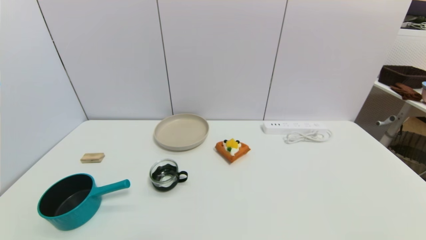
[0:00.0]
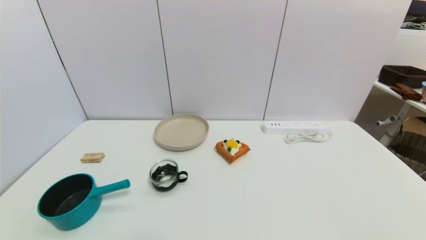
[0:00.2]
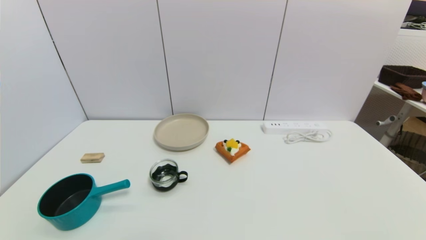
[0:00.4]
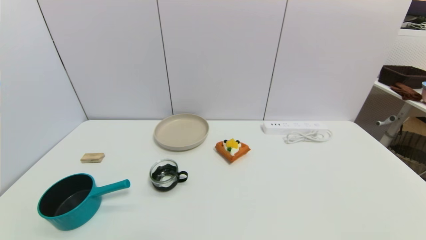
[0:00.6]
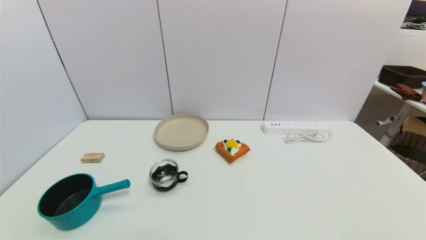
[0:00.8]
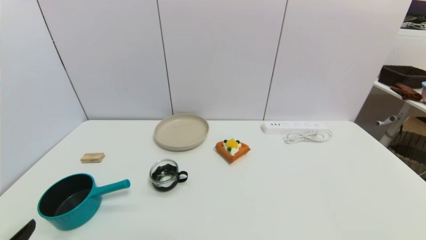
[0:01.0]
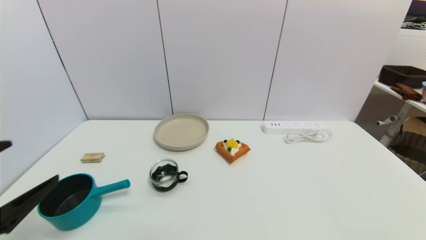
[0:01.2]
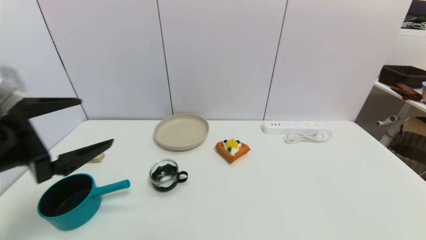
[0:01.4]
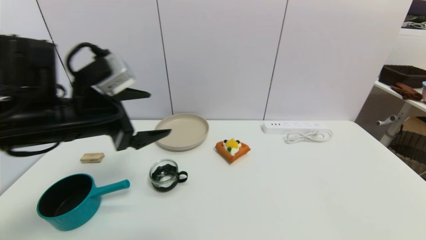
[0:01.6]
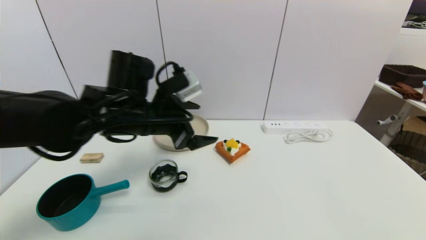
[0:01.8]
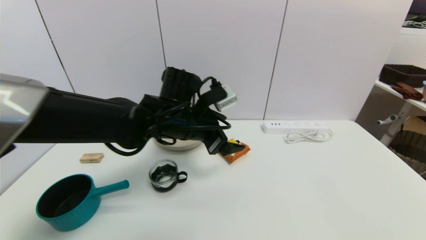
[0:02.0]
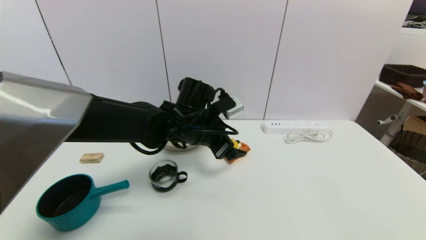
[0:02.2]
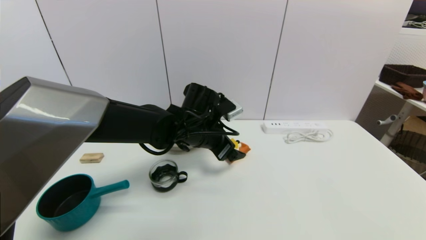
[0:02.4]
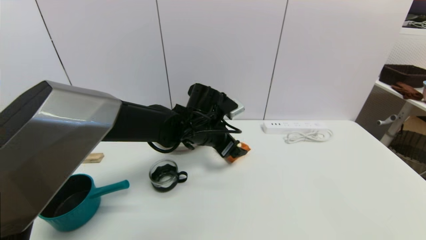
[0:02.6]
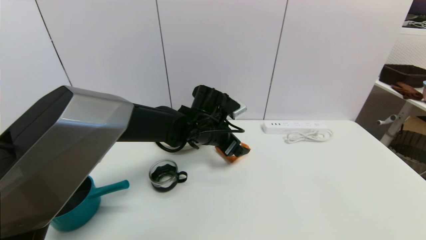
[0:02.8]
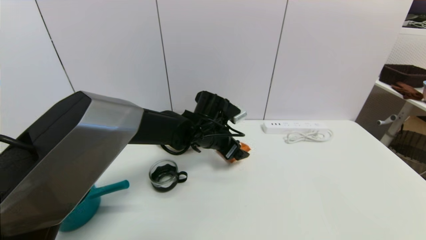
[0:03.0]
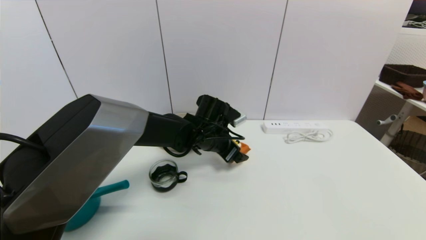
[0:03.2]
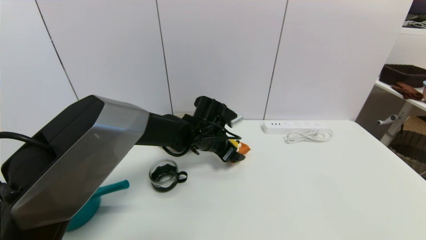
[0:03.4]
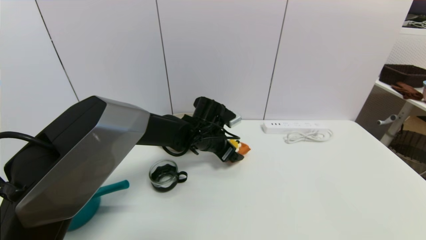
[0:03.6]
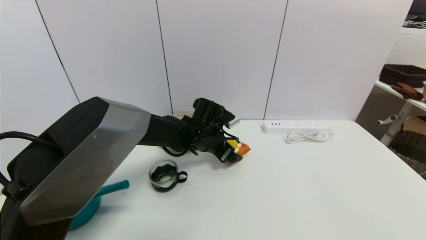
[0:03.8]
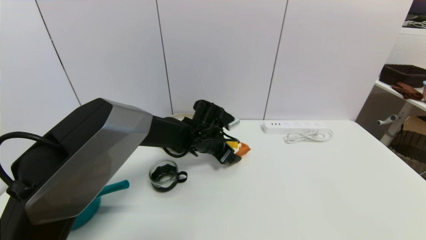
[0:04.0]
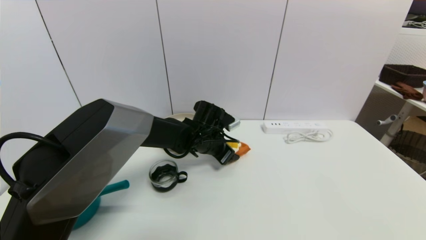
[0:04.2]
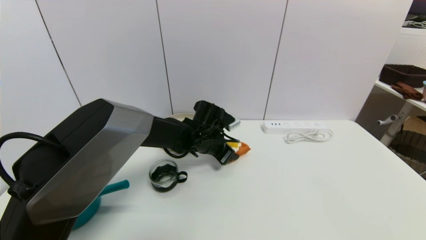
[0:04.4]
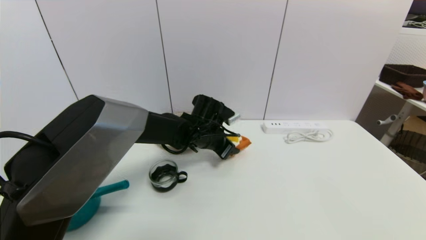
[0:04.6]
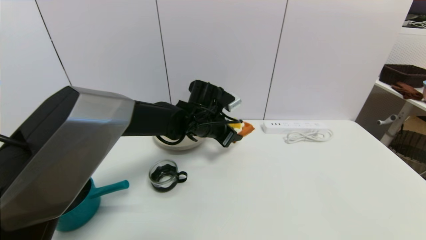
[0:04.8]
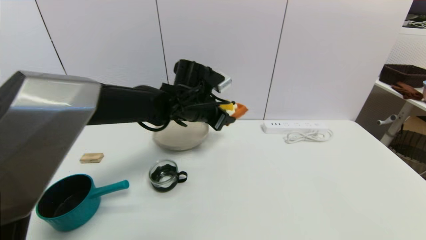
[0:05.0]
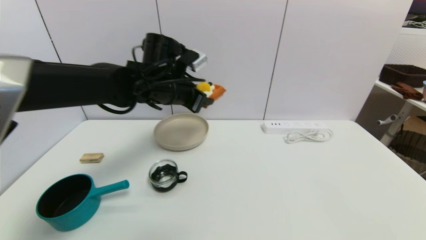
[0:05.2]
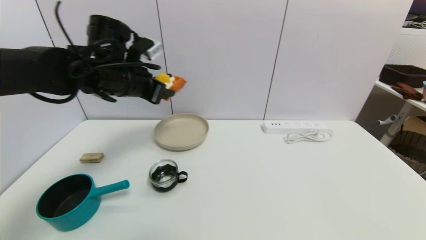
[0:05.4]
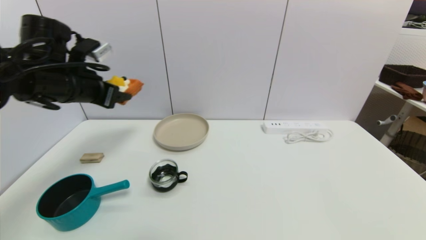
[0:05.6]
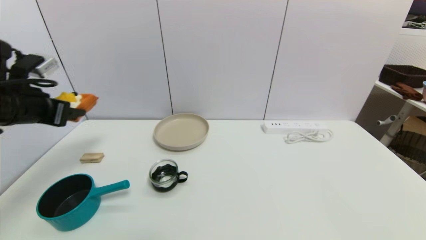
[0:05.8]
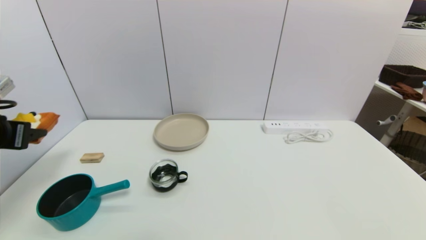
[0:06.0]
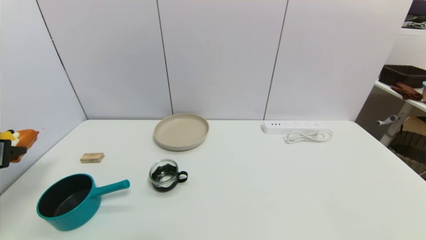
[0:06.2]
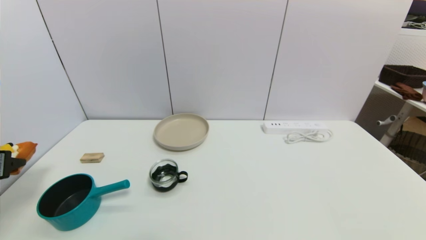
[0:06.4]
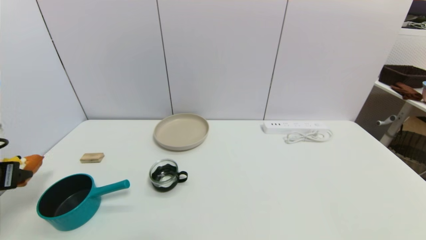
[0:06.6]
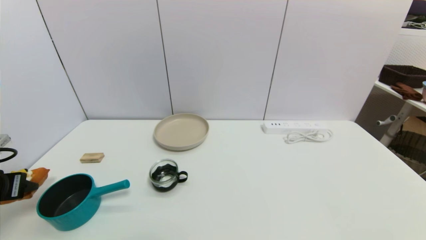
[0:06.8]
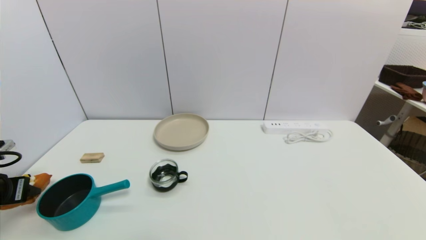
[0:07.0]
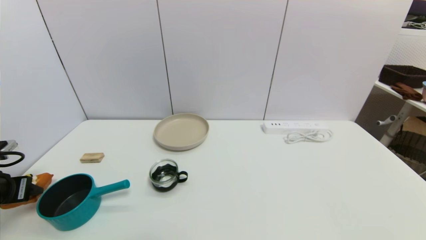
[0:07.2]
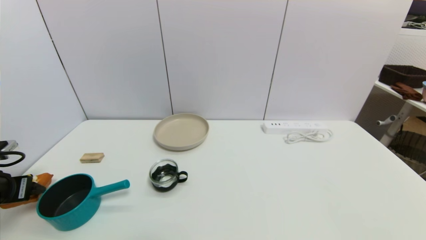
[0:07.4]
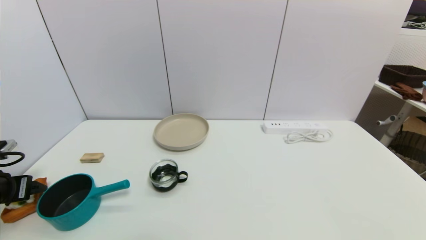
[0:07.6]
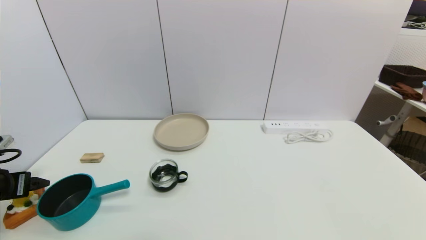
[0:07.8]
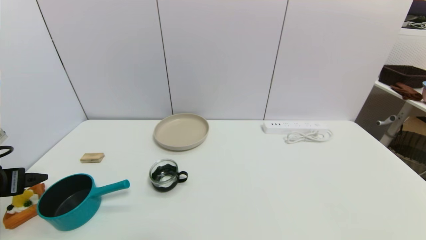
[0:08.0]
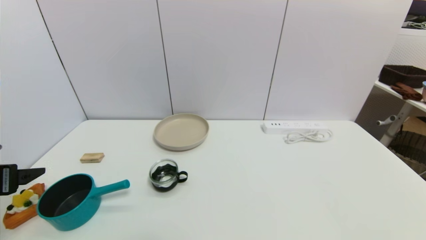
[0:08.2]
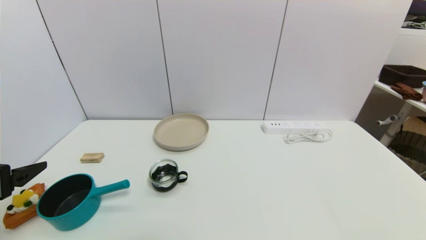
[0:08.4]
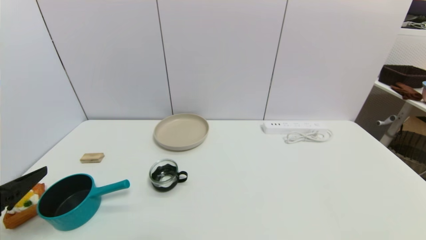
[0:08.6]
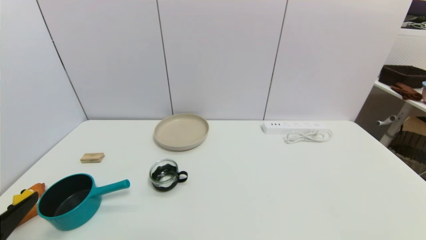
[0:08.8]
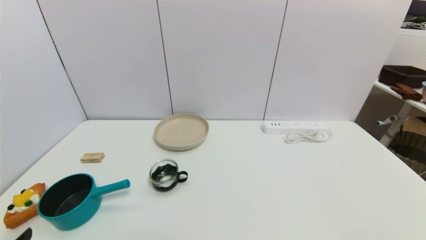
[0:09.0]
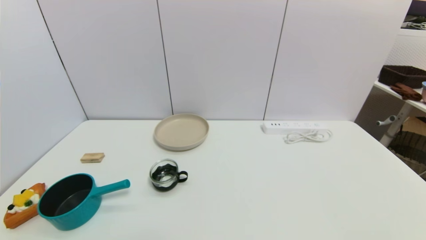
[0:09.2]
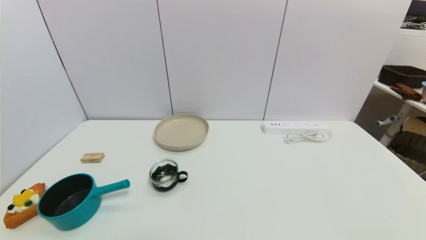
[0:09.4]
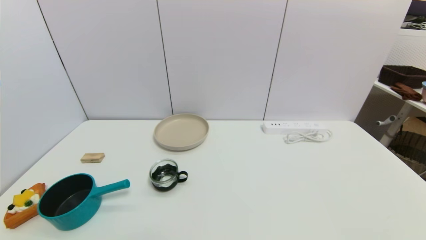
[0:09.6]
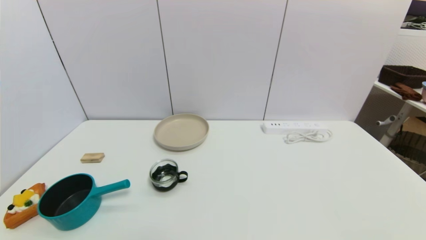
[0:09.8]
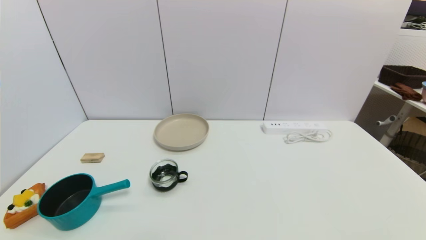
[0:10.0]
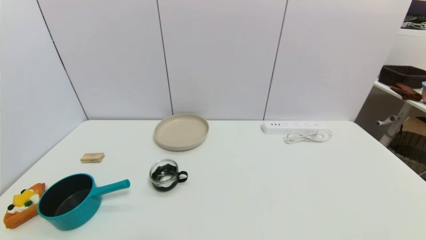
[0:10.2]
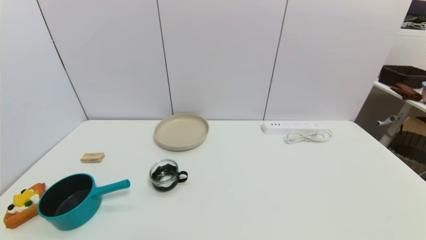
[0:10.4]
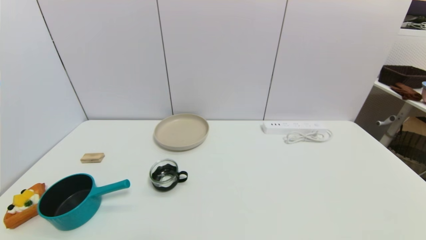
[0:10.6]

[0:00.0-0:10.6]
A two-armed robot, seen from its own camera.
Step, 0:01.0 to 0:04.4: Grasp the pizza with left gripper.
Step, 0:04.8 to 0:07.6: Place the pizza on the table with left gripper.
0:00.0 to 0:01.6: The left gripper goes some 35 cm forward, upward and to the right.
0:01.6 to 0:03.0: The left gripper moves to the right, downward and forward, some 25 cm.
0:03.0 to 0:04.6: The left gripper closes its fingers.
0:04.6 to 0:06.0: The left gripper is displaced to the left and backward by some 40 cm.
0:06.0 to 0:07.6: The left gripper travels downward by some 10 cm, and opens up.
0:07.6 to 0:09.0: The left gripper heads backward and to the right, covering some 25 cm.
